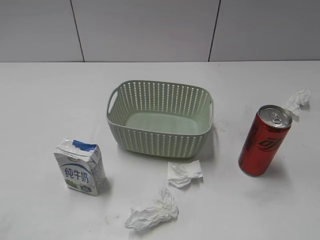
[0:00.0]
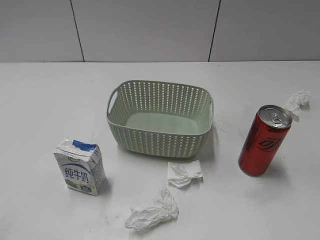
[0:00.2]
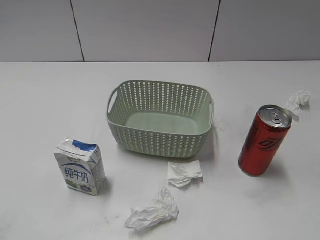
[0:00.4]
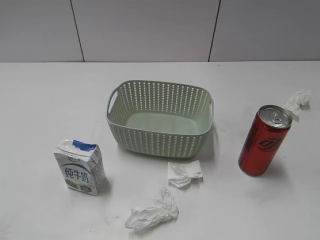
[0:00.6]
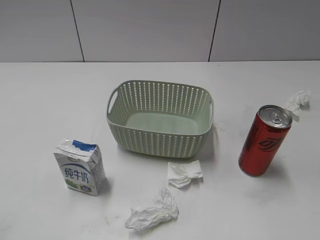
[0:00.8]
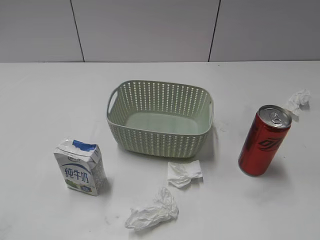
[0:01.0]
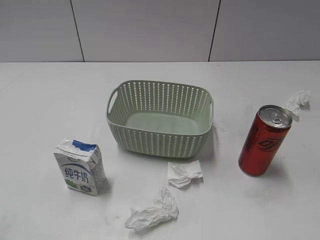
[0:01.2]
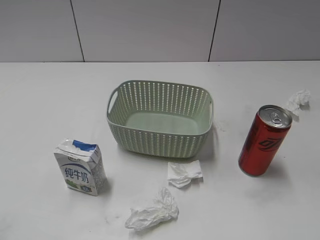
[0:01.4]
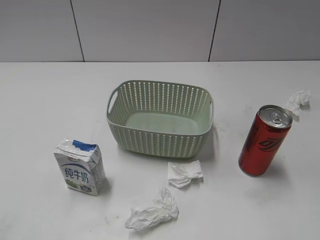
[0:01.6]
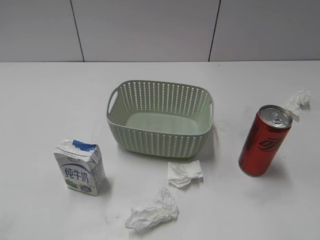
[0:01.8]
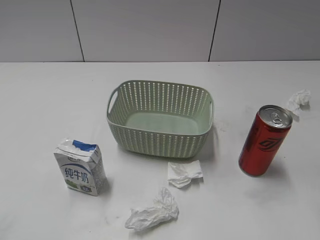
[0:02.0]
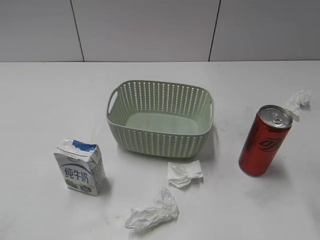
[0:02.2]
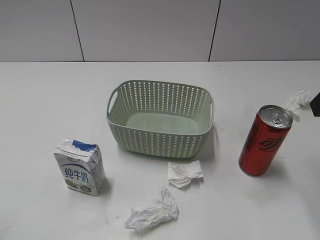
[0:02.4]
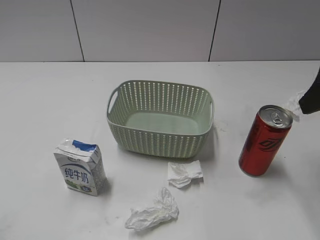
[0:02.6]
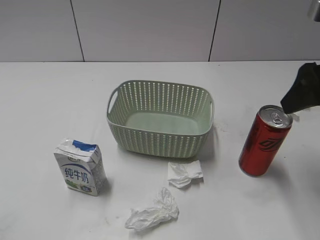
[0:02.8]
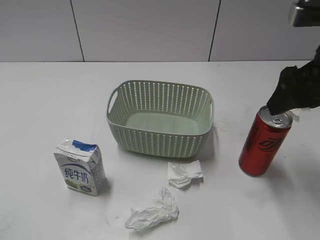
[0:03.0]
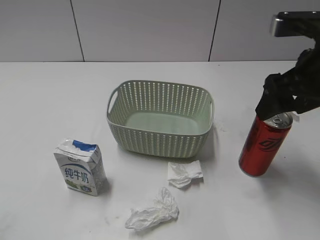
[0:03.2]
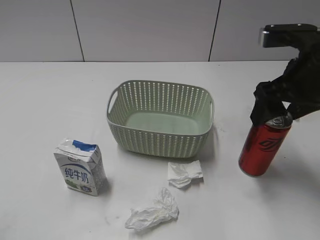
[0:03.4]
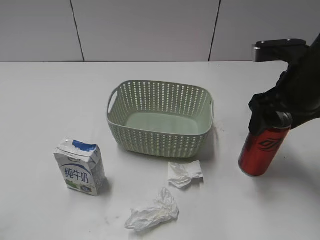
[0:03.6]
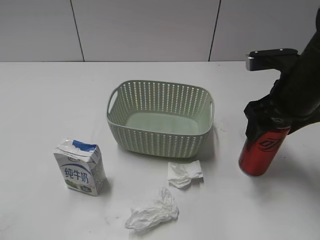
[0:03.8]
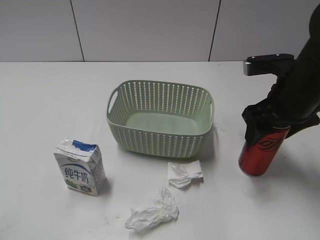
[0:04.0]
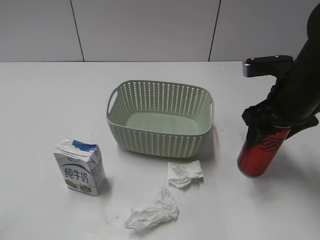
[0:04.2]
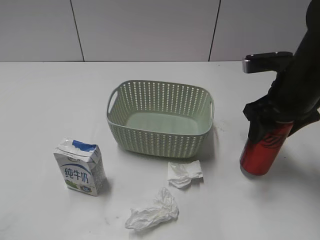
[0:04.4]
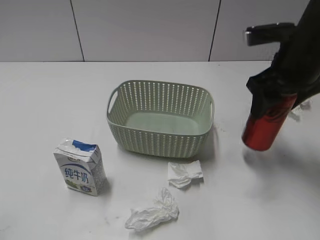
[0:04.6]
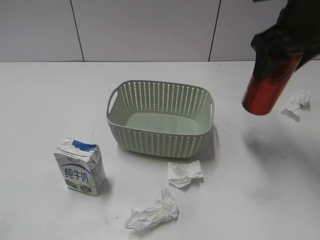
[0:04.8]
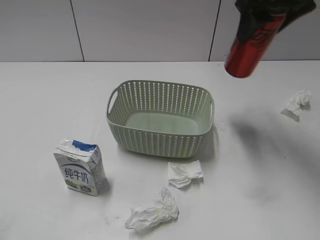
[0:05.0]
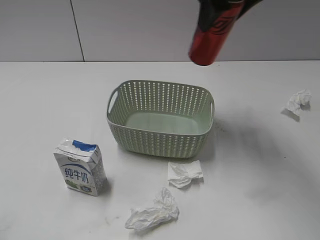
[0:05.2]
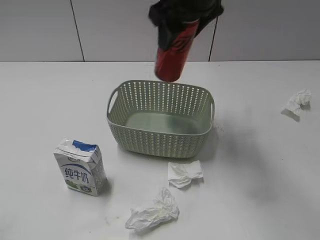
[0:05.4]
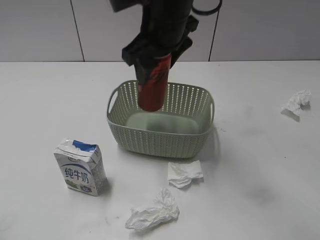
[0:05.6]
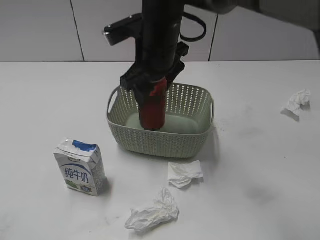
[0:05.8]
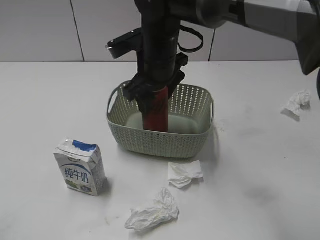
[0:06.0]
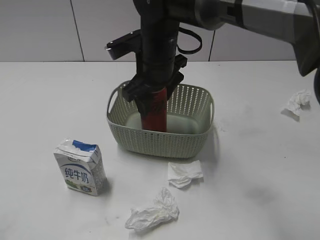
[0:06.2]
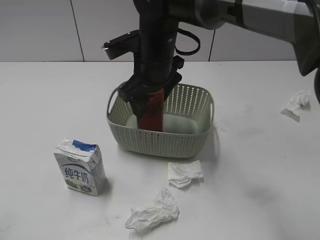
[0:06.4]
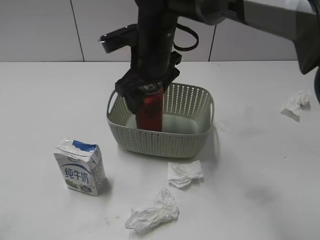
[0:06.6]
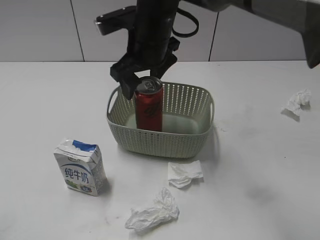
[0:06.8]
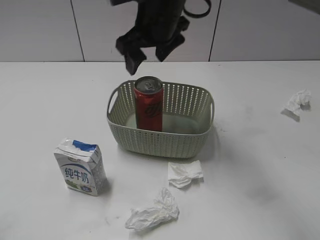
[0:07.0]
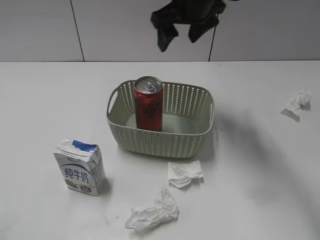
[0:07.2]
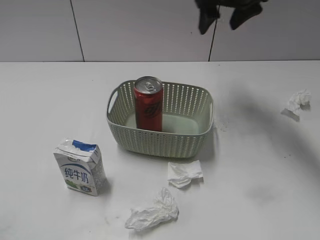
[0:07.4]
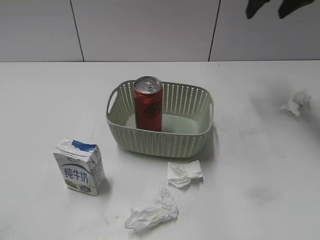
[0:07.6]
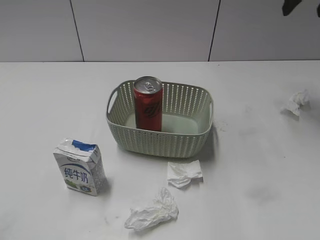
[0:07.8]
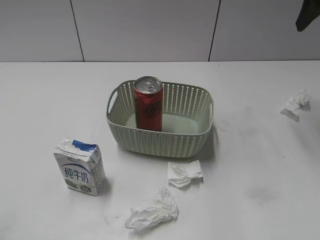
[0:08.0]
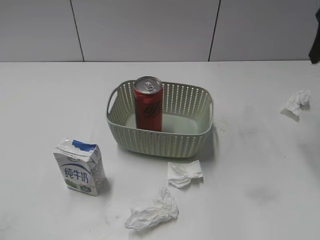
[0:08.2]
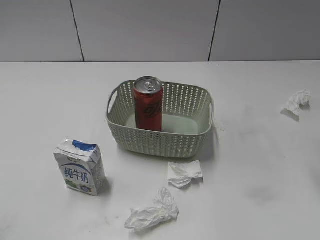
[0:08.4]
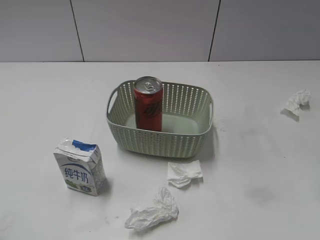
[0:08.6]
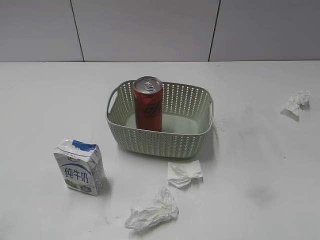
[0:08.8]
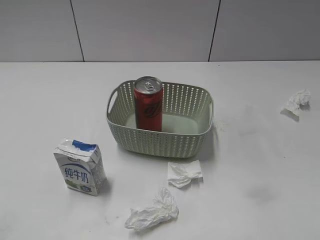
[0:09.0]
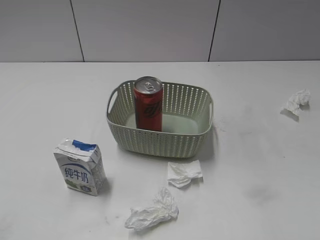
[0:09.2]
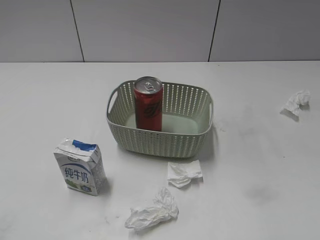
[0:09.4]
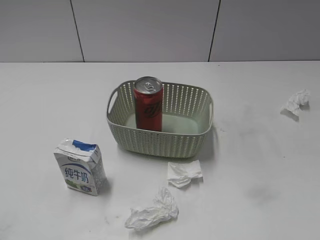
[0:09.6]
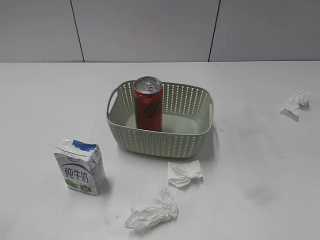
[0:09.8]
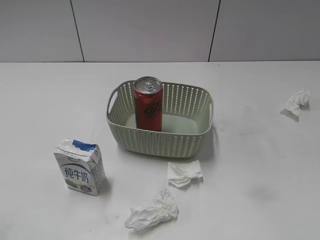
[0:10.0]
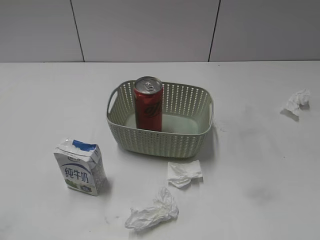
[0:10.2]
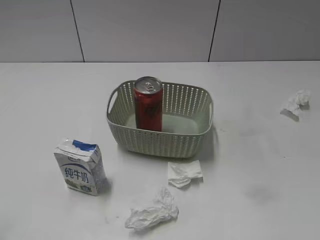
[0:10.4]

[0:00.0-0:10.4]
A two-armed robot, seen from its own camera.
Step, 0:02.4 to 0:04.2: Grasp the cola can with right gripper.
Step, 0:04.4 to 0:07.0: Place the cola can in the basket with right gripper.
0:01.4 to 0:03.0: The right gripper moves forward, some 20 cm.
0:03.0 to 0:04.4: The right gripper travels downward and forward by some 10 cm, and closes its fingers.
0:04.4 to 0:06.0: The right gripper goes roughly 20 cm to the left.
0:06.0 to 0:07.4: The right gripper moves to the right, upward and forward, some 20 cm, and opens up.
0:07.4 to 0:09.0: The right gripper goes approximately 35 cm backward and to the right.

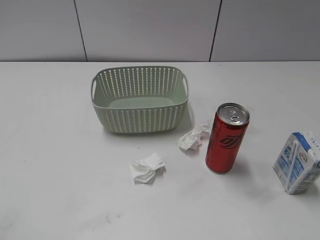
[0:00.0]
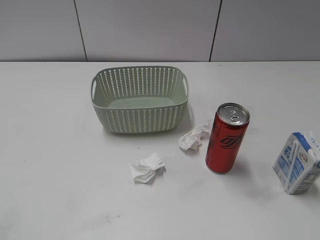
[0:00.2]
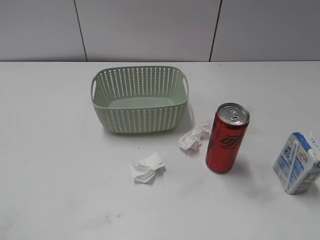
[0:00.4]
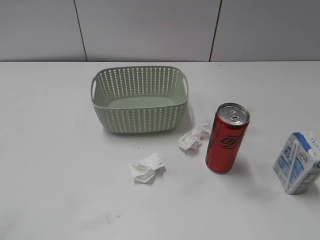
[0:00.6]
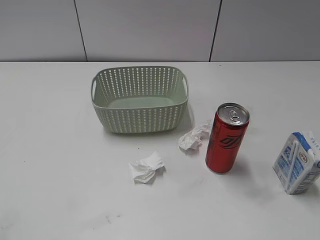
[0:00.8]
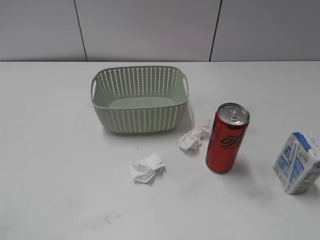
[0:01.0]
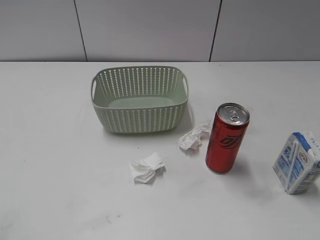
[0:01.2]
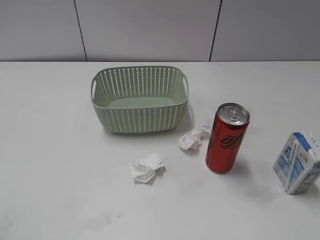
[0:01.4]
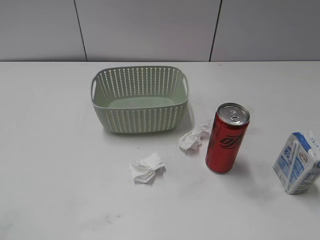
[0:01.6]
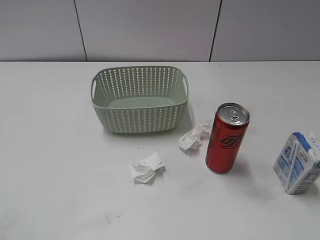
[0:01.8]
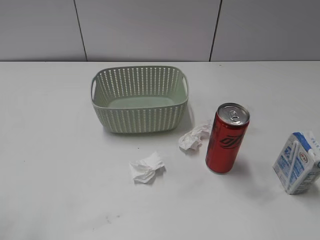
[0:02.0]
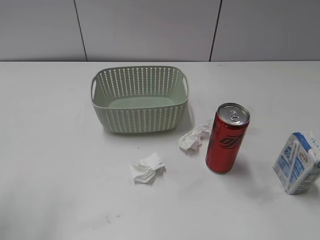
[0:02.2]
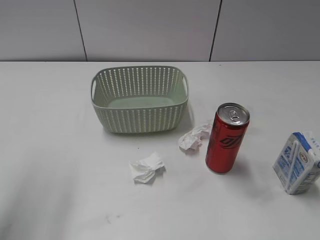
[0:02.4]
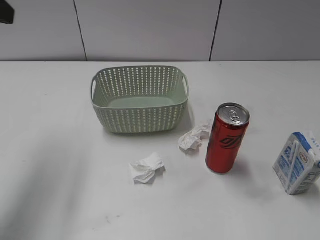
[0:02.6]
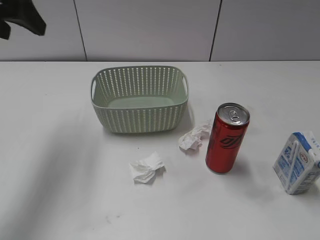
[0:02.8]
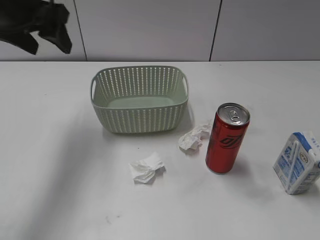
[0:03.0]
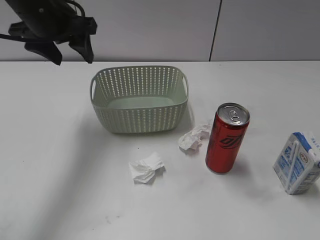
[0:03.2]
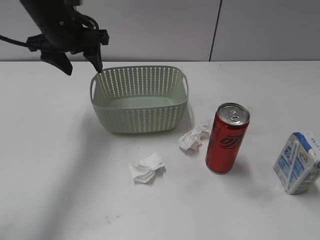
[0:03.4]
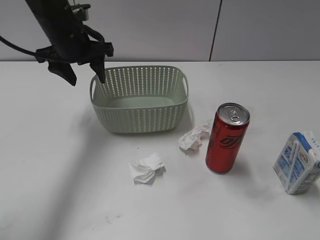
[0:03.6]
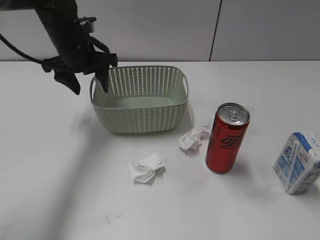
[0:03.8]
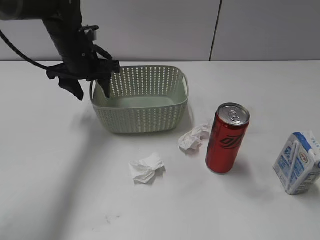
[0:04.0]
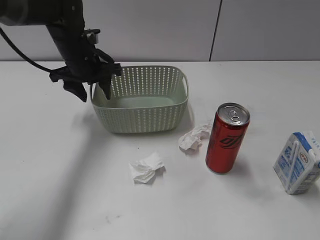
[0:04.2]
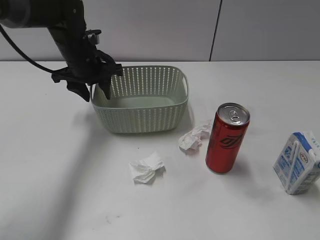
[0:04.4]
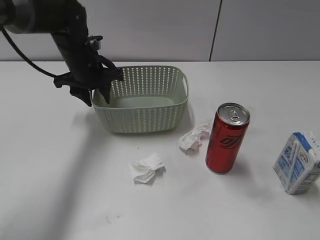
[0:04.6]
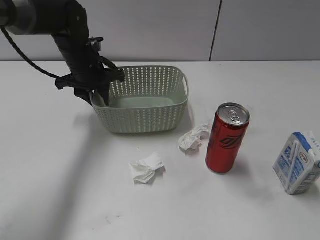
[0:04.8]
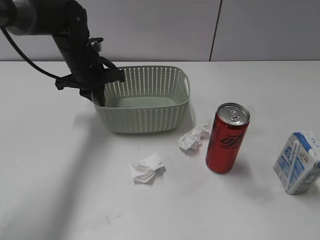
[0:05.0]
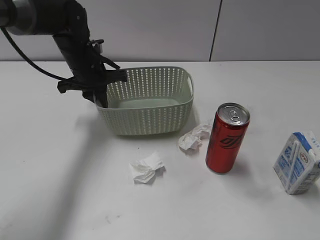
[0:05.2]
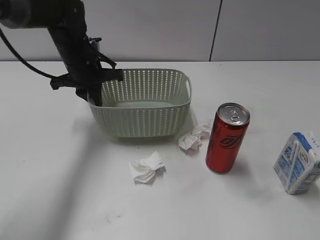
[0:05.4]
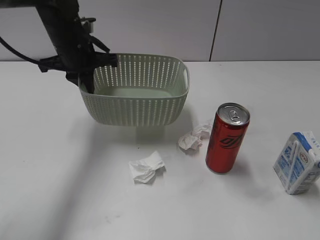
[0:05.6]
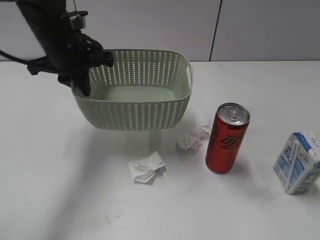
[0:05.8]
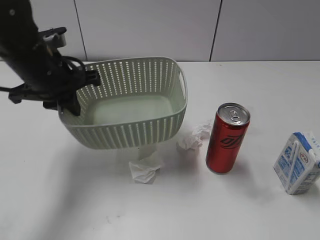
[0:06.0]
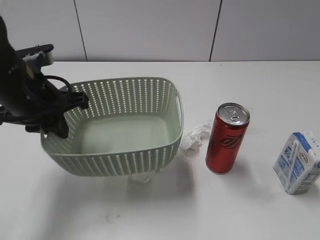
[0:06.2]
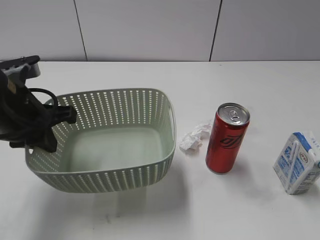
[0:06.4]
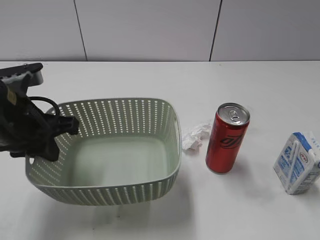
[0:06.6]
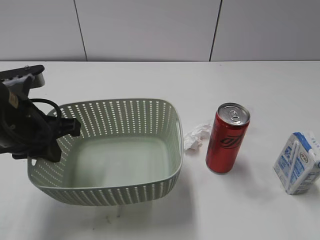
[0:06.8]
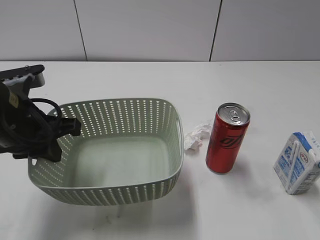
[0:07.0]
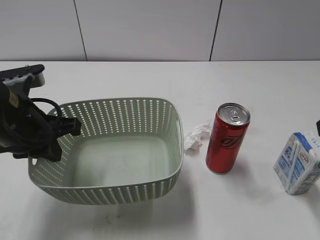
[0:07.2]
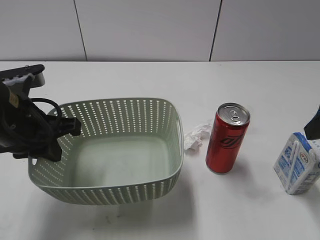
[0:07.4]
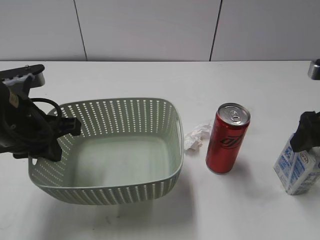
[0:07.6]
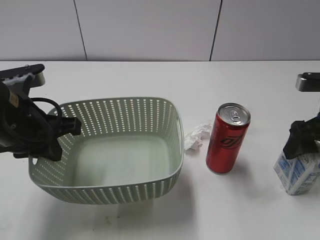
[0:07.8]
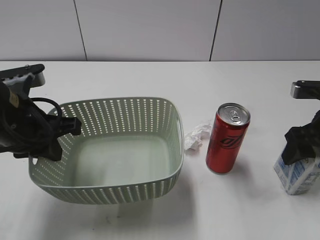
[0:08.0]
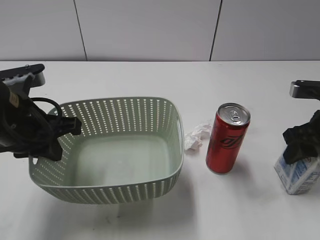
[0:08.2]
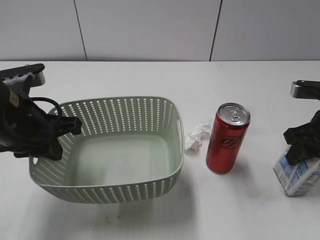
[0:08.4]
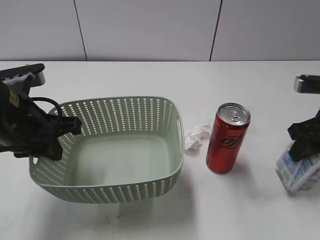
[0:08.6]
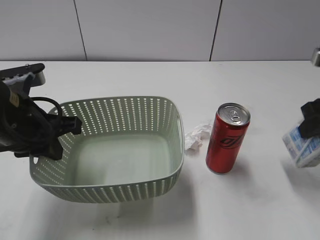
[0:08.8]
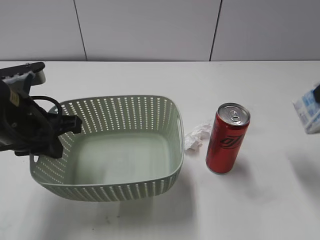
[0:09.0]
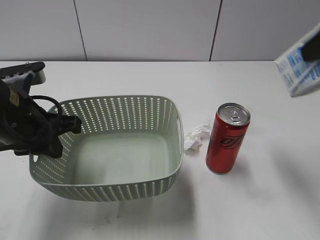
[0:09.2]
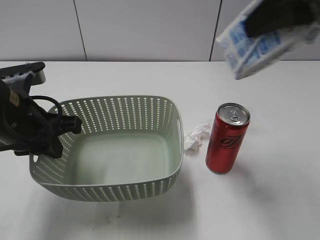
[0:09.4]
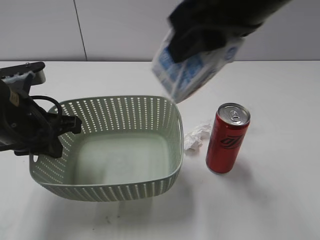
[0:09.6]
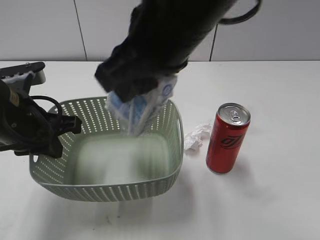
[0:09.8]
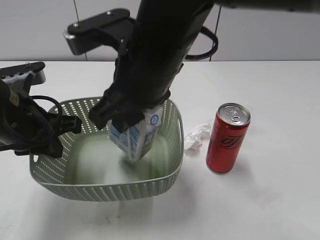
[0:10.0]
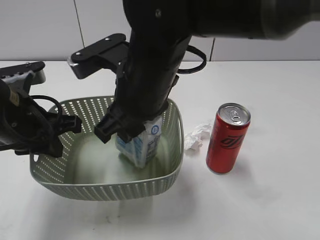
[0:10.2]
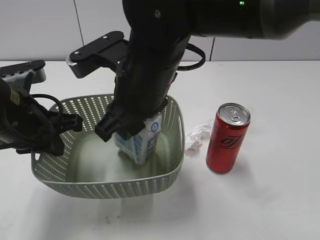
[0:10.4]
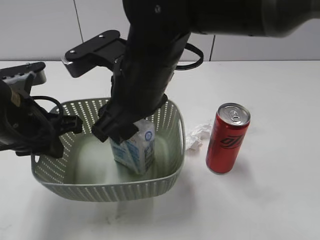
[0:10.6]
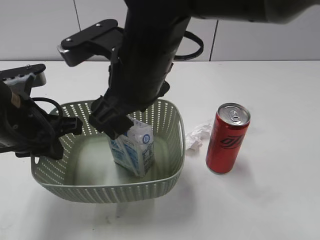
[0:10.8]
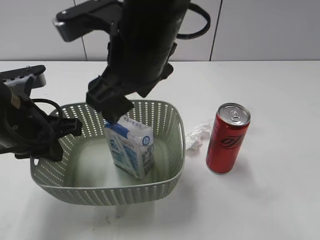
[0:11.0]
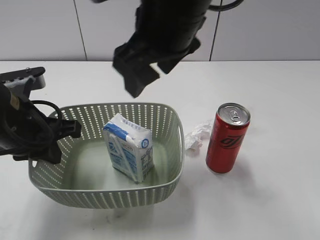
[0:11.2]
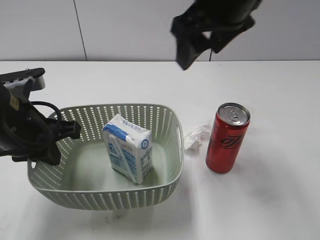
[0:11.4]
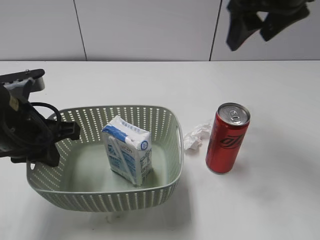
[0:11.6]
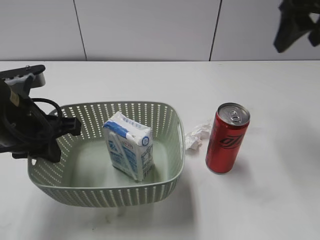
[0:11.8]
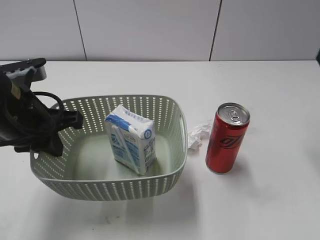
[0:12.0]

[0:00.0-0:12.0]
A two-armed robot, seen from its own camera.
Step, 0:02.6 to 0:05.0: Grasp the basket with left gripper.
Step, 0:05.2 to 0:06.6: Lift the basket with left gripper.
Step, 0:06.8 to 0:08.2: Grasp the milk with right gripper.
Step, 0:08.4 to 0:10.8: Place the milk in the basket with right gripper.
0:01.6 to 0:03.0: The left gripper moves forward, roughly 35 cm.
0:03.0 to 0:04.4: The left gripper goes about 15 cm downward and forward.
0:04.4 to 0:06.0: The left gripper goes about 15 cm backward, and closes its fingers.
0:06.0 to 0:07.6: The right gripper moves forward, roughly 25 cm; the left gripper shifts about 10 cm backward.
0:07.6 to 0:09.0: The right gripper travels upward by roughly 10 cm, and closes its fingers.
0:09.0 to 0:10.4: The right gripper travels to the left by about 30 cm.
0:10.4 to 0:12.0: The right gripper travels to the right by roughly 30 cm, and opens its fingers.
